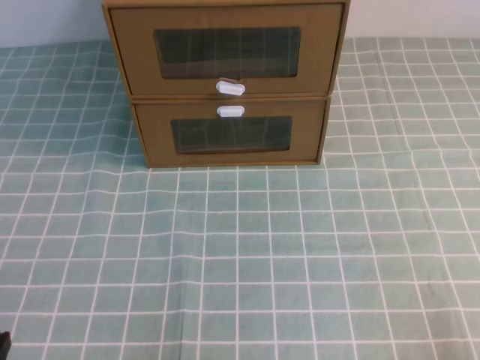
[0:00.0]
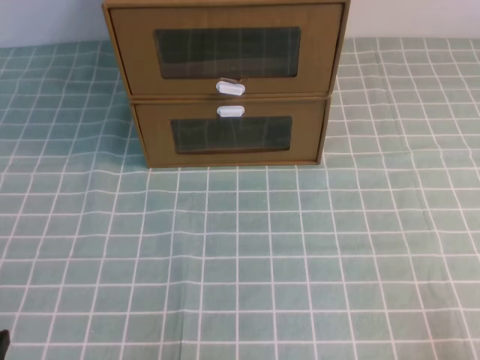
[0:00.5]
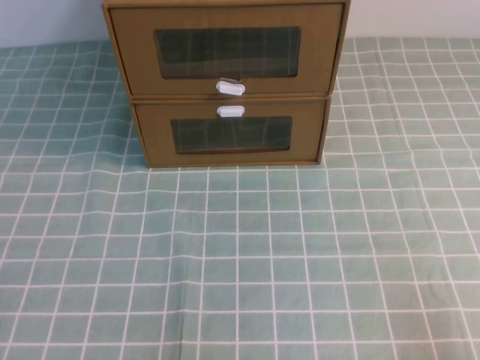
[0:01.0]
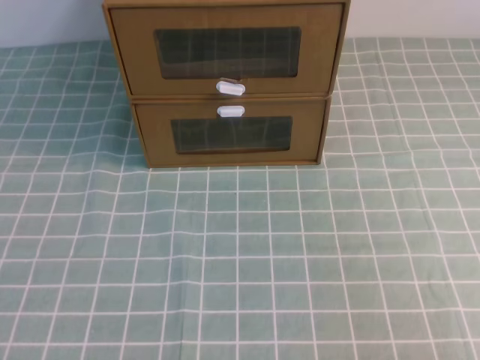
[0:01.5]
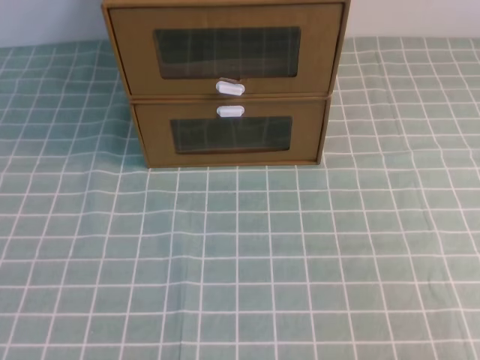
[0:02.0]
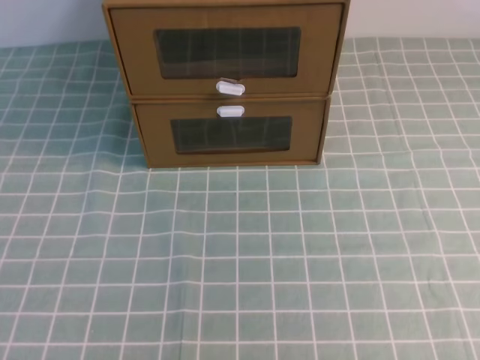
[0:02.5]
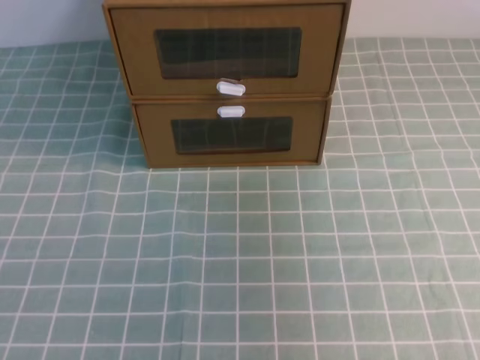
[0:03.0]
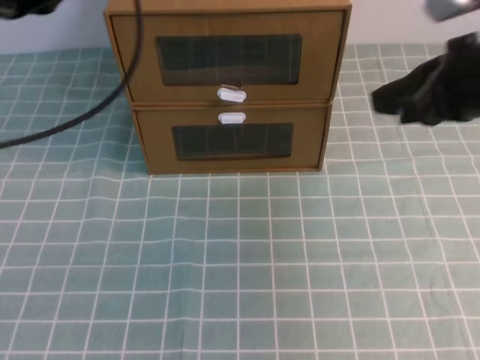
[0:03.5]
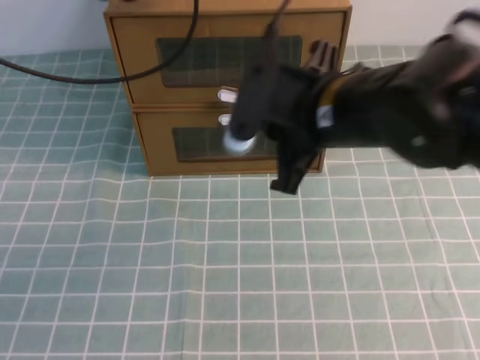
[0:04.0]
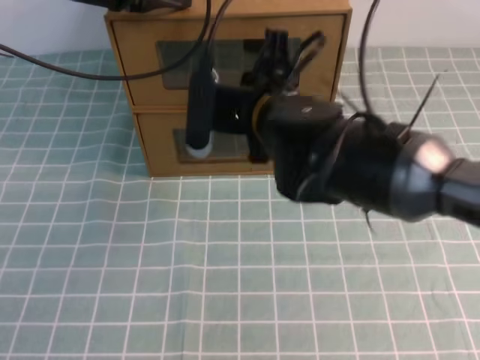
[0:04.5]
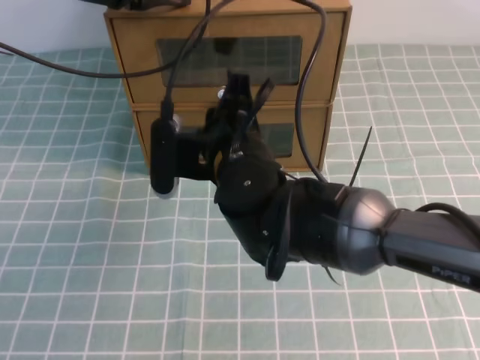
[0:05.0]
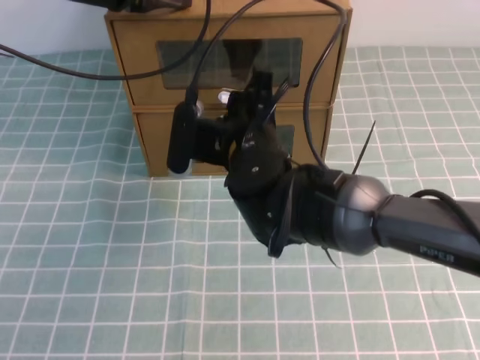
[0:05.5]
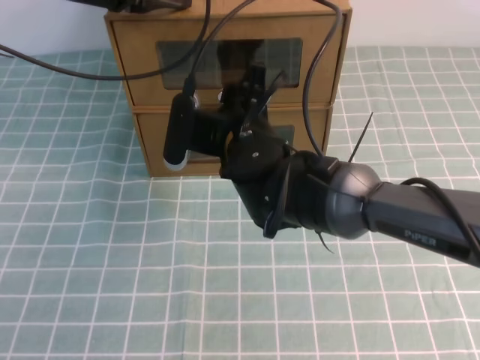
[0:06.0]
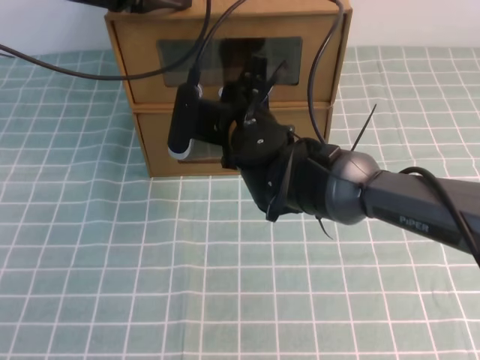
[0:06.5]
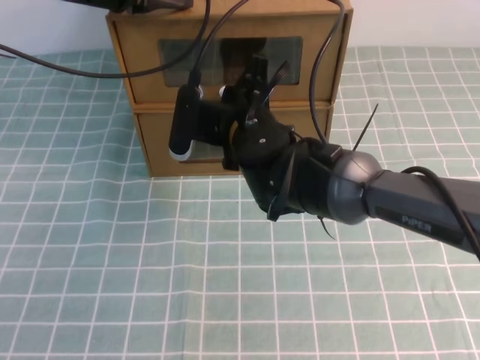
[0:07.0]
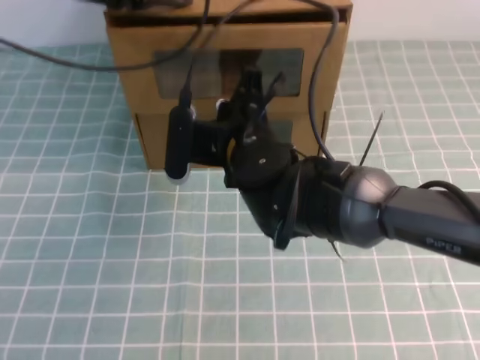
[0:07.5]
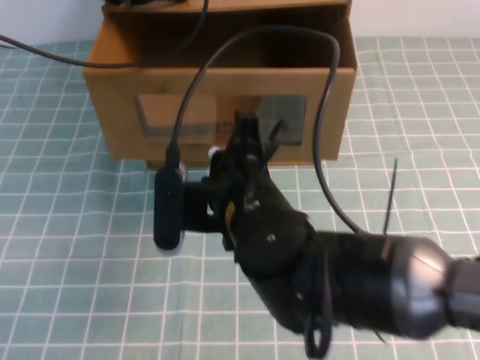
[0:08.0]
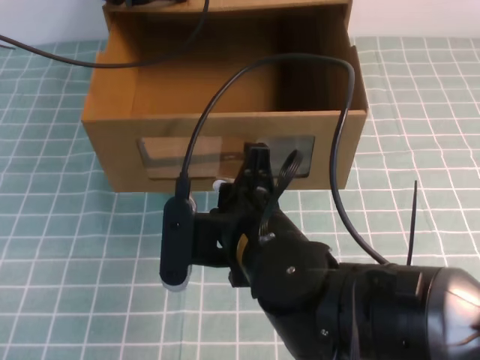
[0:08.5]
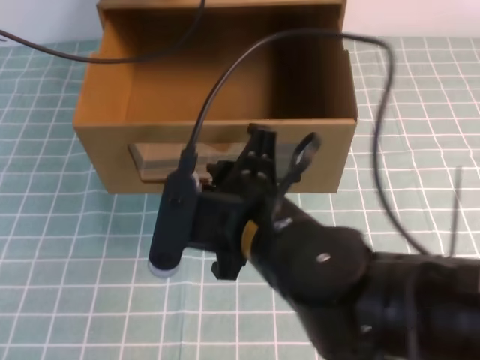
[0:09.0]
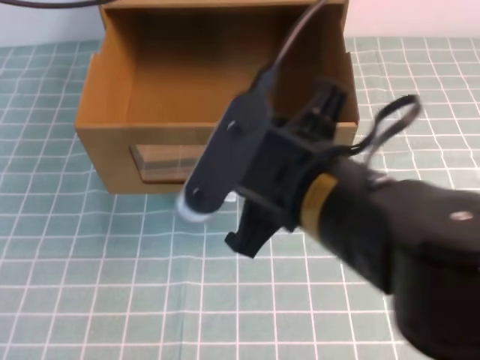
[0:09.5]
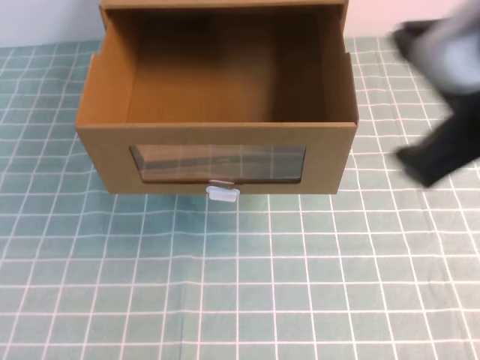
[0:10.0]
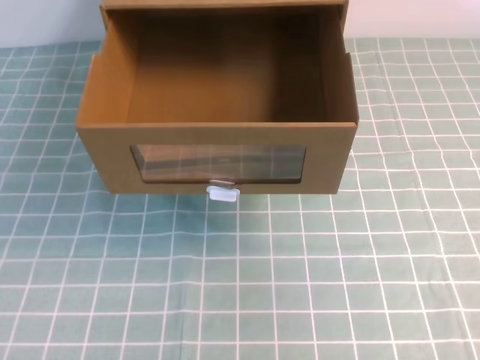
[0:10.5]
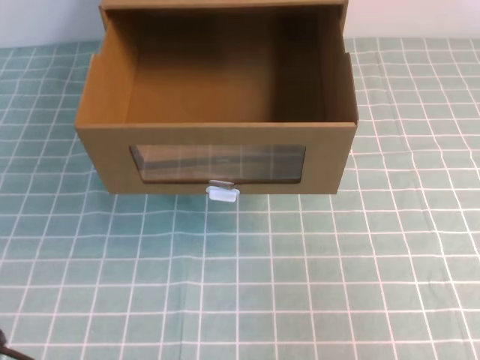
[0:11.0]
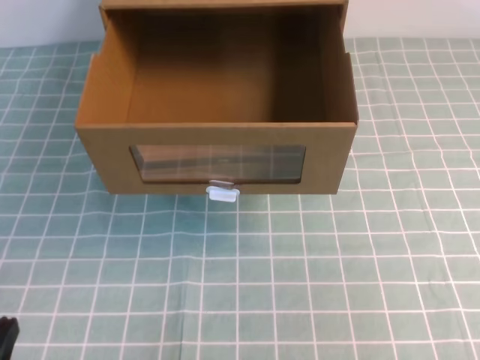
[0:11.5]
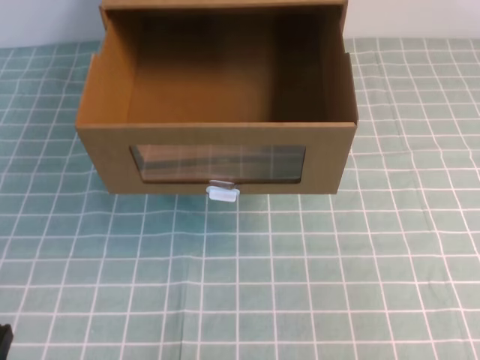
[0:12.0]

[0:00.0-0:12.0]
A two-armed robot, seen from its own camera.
Task of the whole recording: open the shoebox on the cyan tablecloth.
0:02.0 to 0:04.0: The left gripper moves forward, approximately 40 cm; the right gripper heads forward and to the left, covering about 40 cm.
0:04.0 to 0:06.0: The right gripper shifts about 15 cm to the left, downward and forward, and opens its fingers.
0:06.0 to 0:08.0: The right gripper goes some 10 cm backward, and closes.
0:08.0 to 0:10.0: The left gripper is displaced backward and upward by some 35 cm; the right gripper is displaced upward, to the right and backward by roughly 25 cm, and opens, then closes once more.
0:10.0 to 0:12.0: The right gripper heads to the right, downward and backward, covering some 20 cm, while the left gripper goes some 40 cm downward.

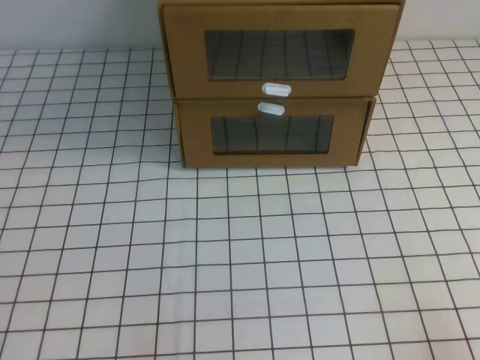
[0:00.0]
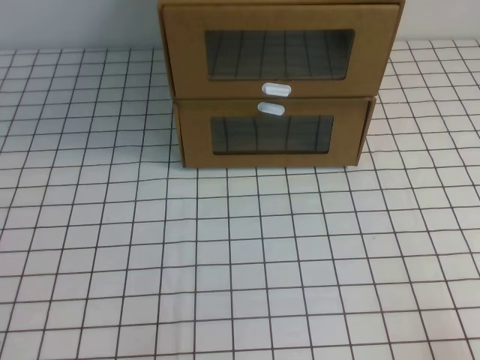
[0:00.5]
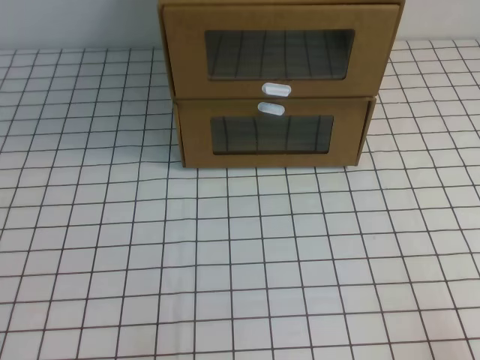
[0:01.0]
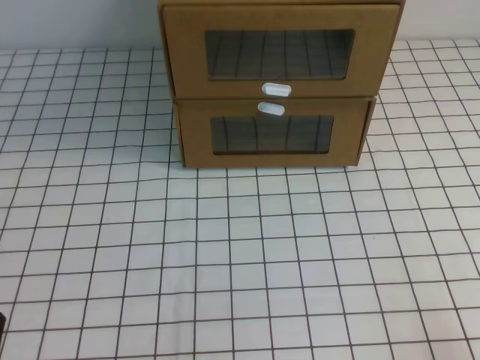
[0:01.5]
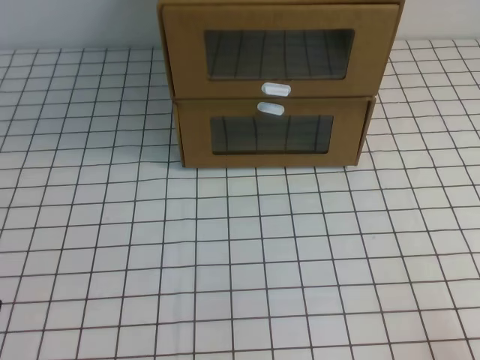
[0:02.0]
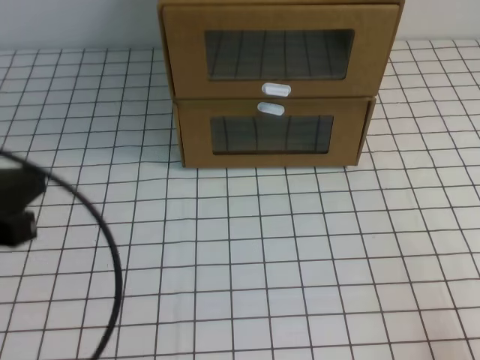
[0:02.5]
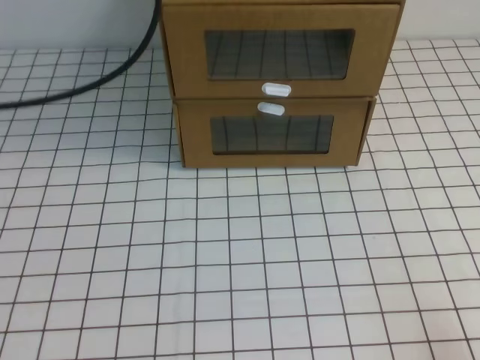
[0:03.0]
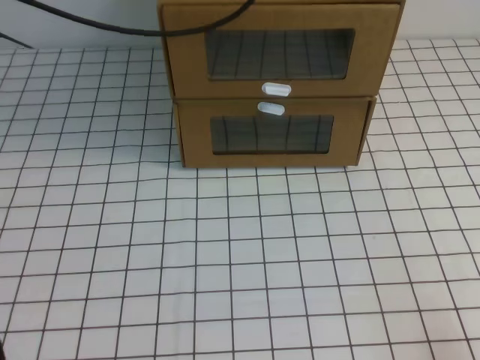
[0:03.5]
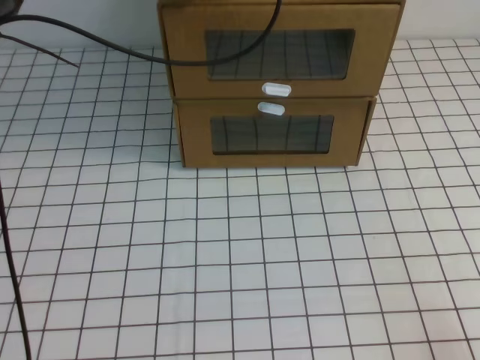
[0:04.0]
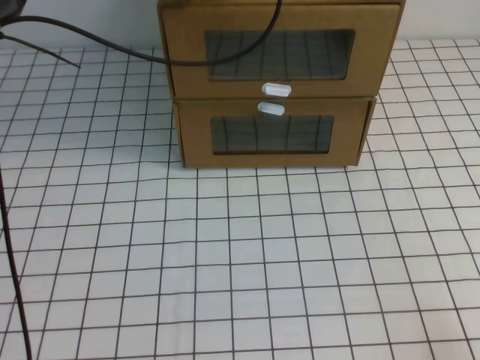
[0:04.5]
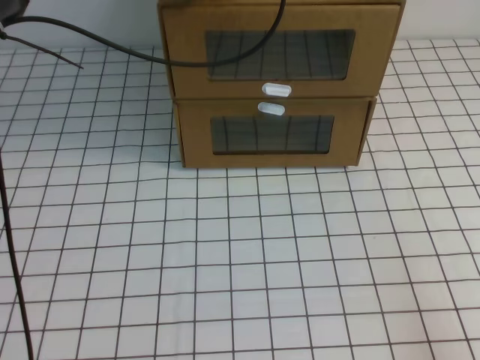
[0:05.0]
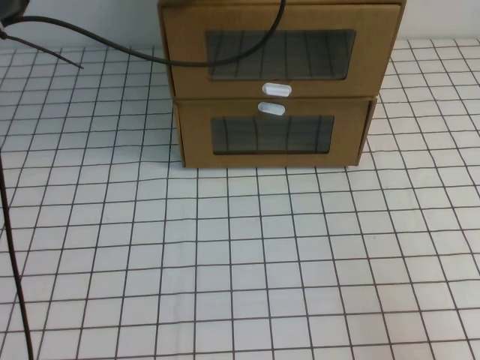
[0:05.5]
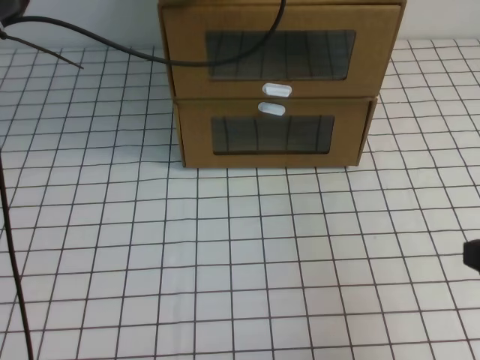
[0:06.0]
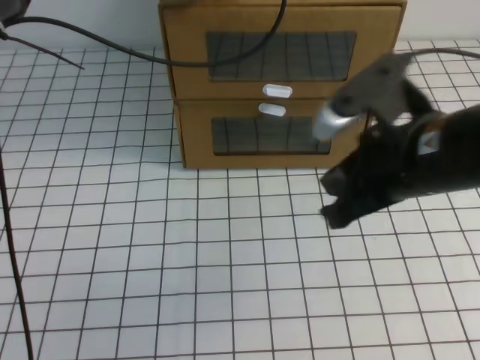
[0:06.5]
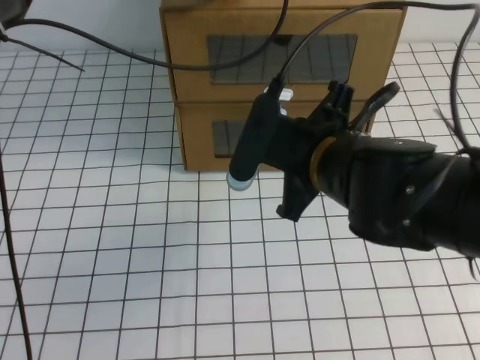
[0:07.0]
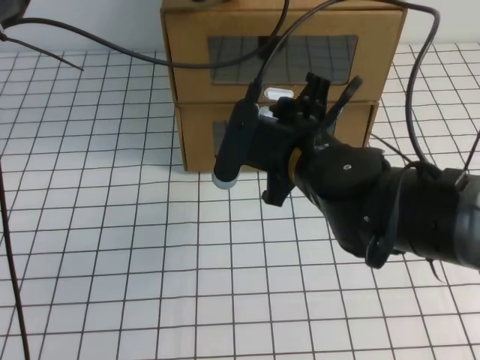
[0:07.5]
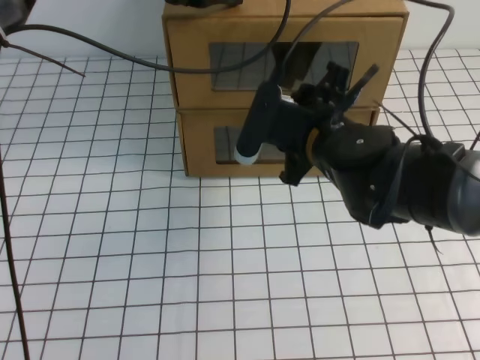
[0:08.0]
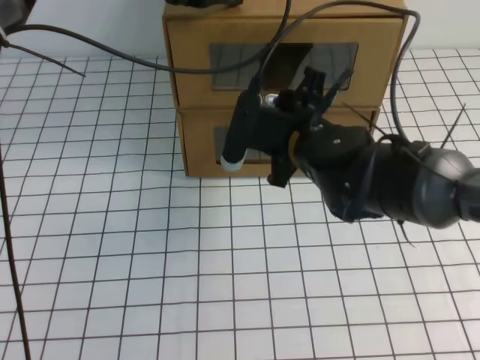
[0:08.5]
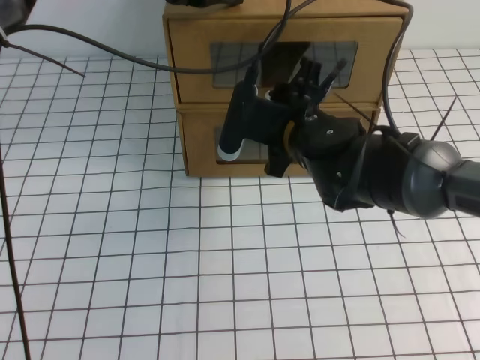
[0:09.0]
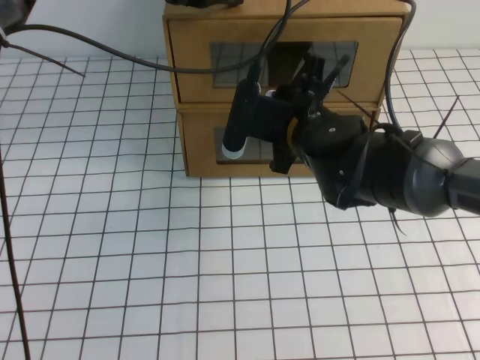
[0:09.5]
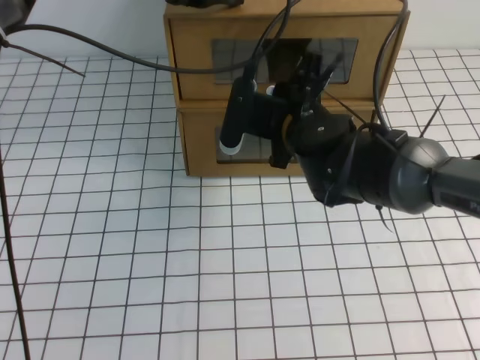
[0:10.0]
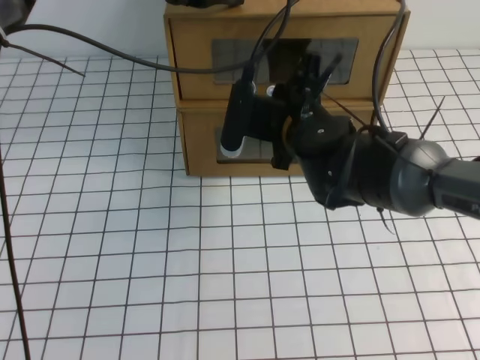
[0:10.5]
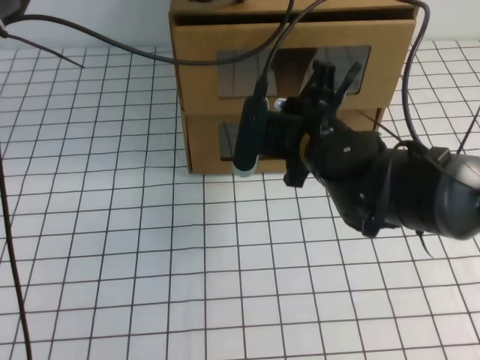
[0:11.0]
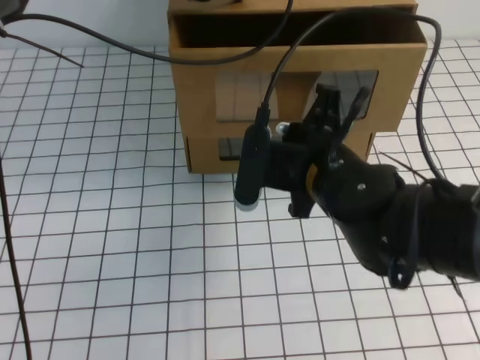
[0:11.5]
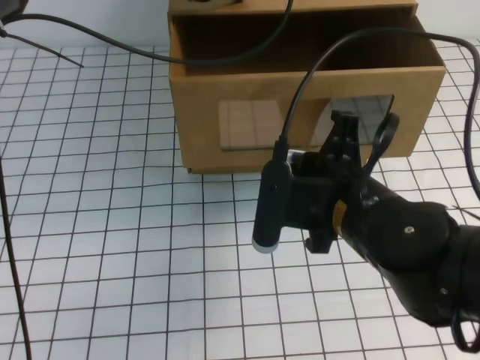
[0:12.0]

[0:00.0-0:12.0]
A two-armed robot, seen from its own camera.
Task of the whole recording: open the shoebox on the white tablecloth.
0:02.0 to 0:04.0: The left gripper moves forward, upward and to the right, roughly 50 cm.
0:04.0 to 0:06.0: The right gripper shifts some 15 cm upward and forward.
0:06.0 to 0:08.0: The right gripper moves to the left and forward, about 25 cm, and opens up.
0:08.0 to 0:10.0: The right gripper closes up.
0:10.0 to 0:12.0: The right gripper is displaced backward by roughly 15 cm.

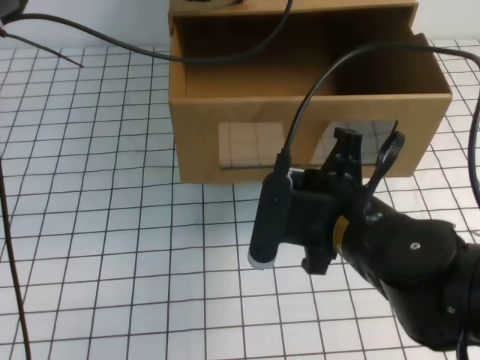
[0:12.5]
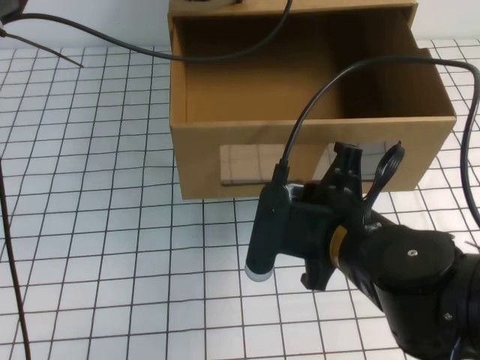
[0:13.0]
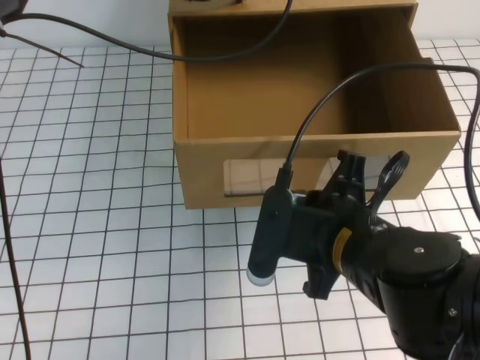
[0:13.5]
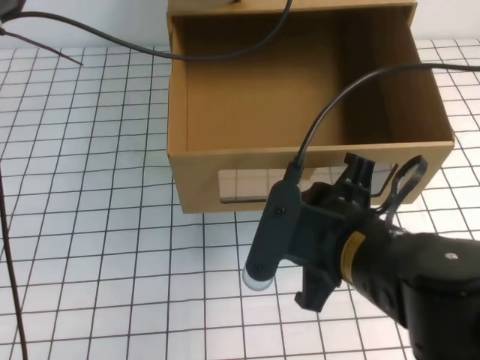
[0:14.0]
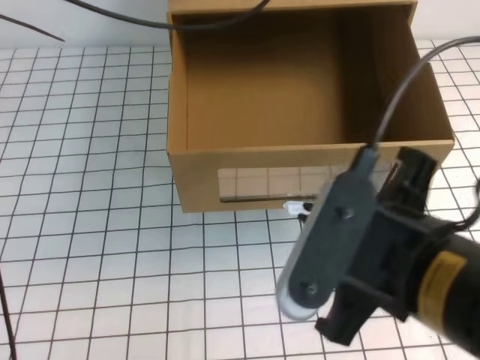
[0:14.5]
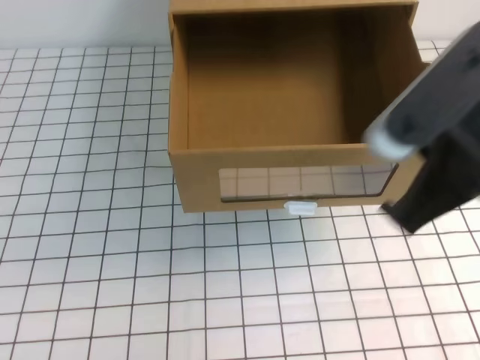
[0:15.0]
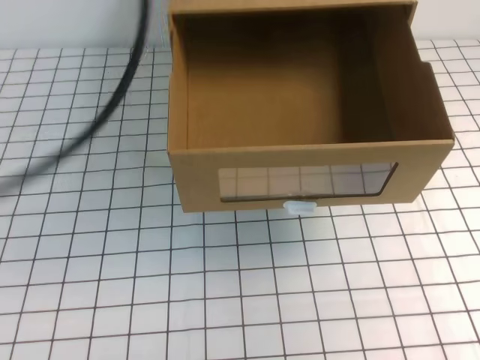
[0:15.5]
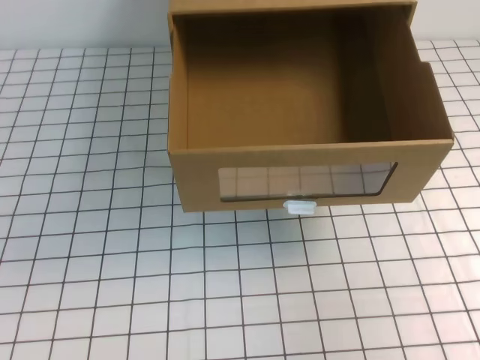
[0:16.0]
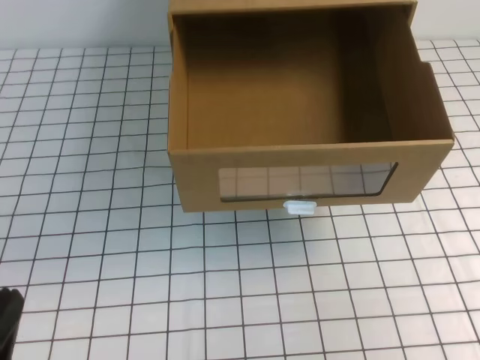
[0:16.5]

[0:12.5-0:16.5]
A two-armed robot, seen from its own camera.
Task of the whole recording: open the shoebox on the white tablecloth.
0:12.5 to 0:14.5: The right gripper is displaced backward and upward by about 10 cm, and opens and closes again, while the left gripper heads upward, covering approximately 5 cm.
0:14.5 to 0:16.5: The left gripper shifts roughly 40 cm backward, downward and to the left; the right gripper travels to the right by roughly 15 cm.
